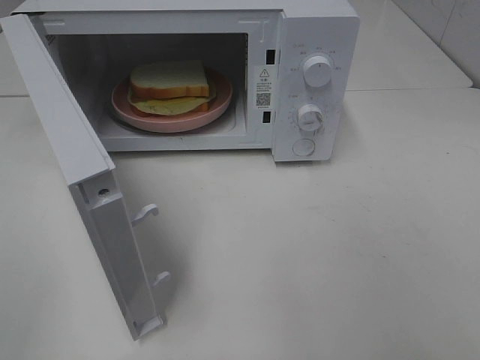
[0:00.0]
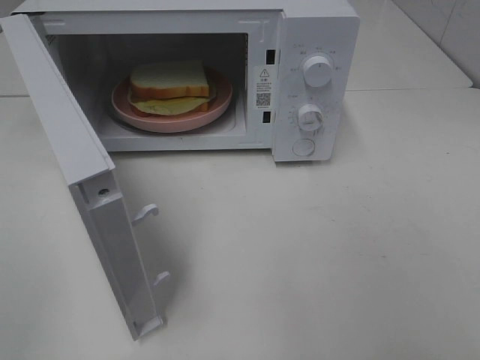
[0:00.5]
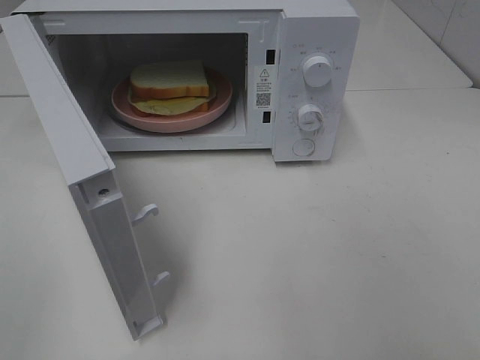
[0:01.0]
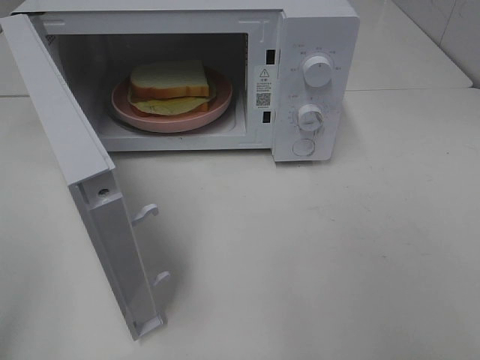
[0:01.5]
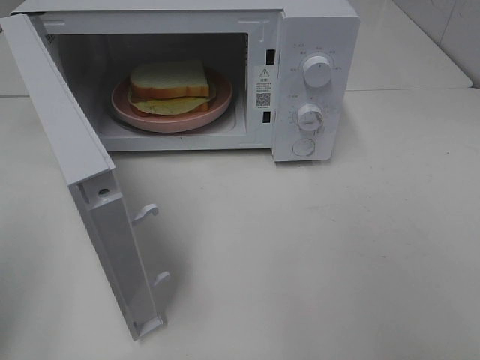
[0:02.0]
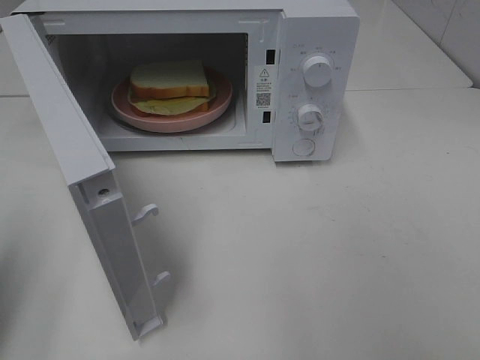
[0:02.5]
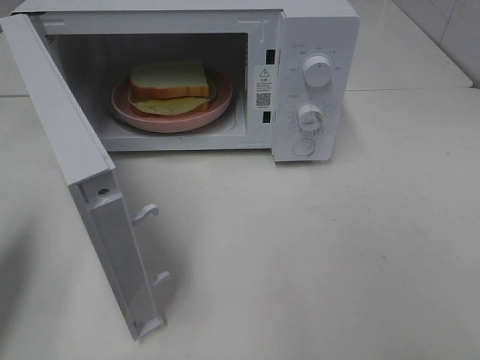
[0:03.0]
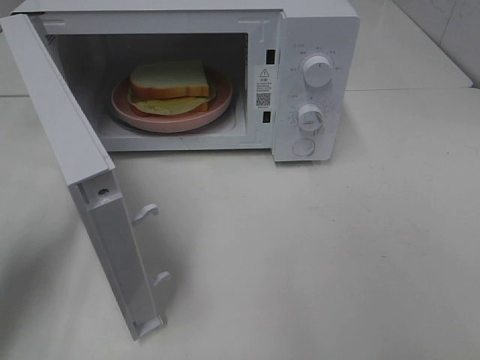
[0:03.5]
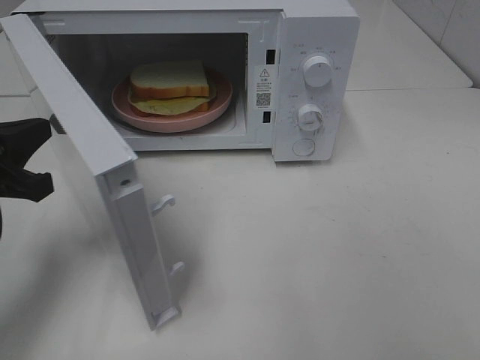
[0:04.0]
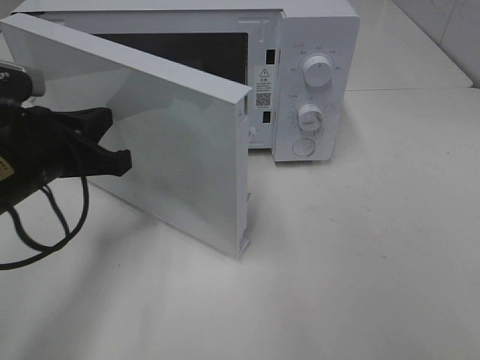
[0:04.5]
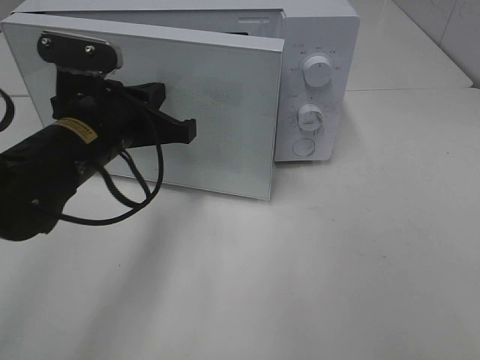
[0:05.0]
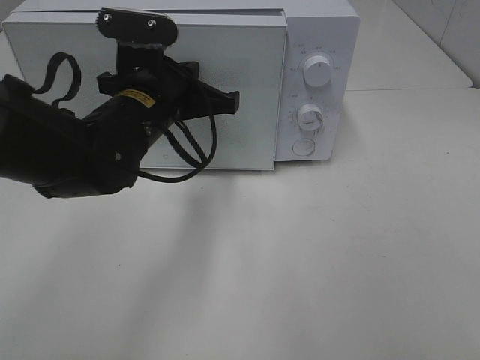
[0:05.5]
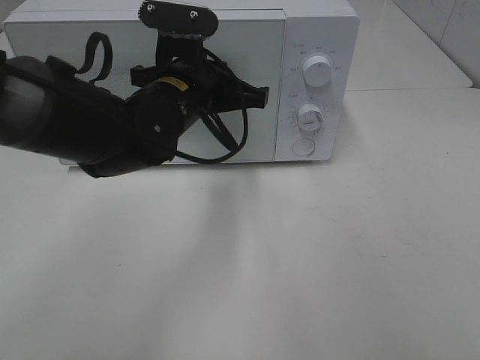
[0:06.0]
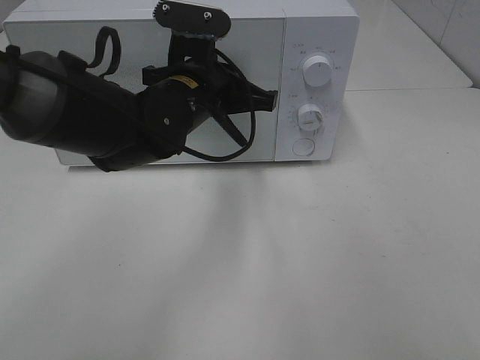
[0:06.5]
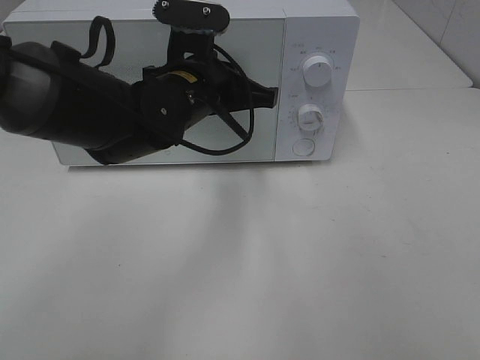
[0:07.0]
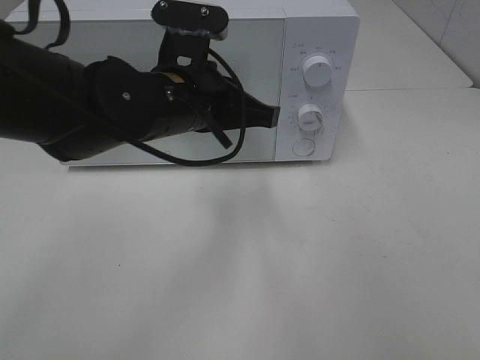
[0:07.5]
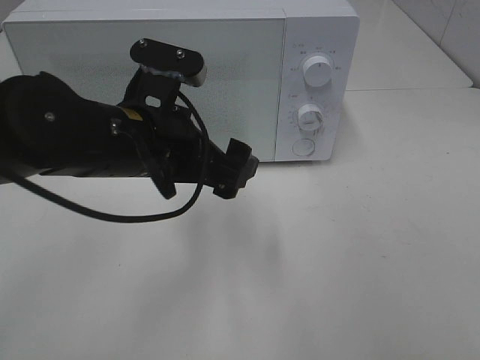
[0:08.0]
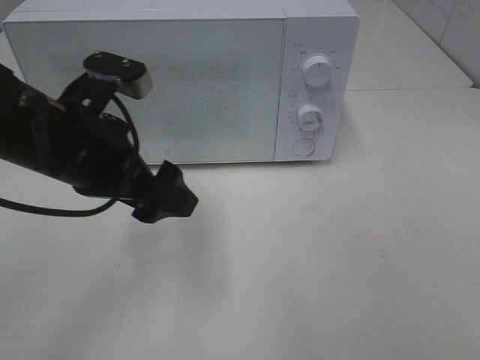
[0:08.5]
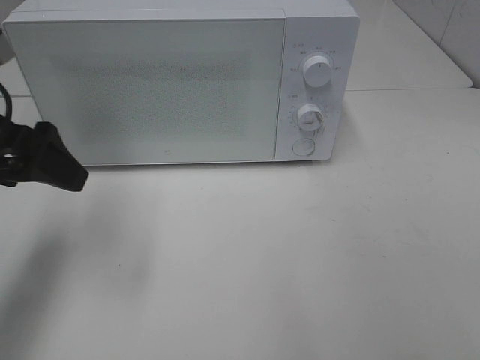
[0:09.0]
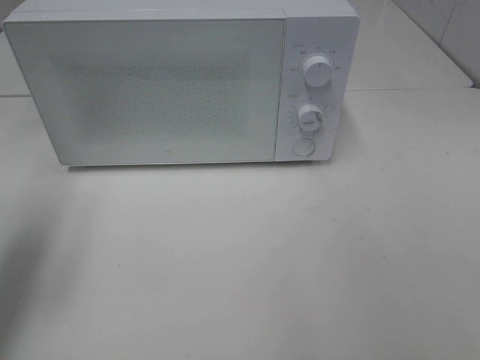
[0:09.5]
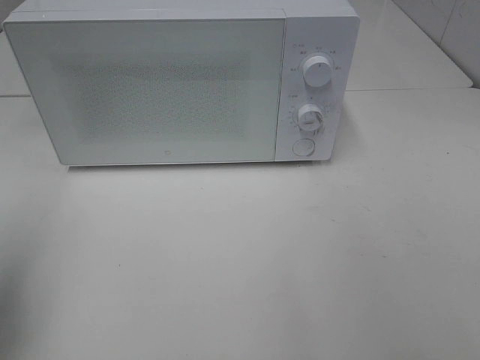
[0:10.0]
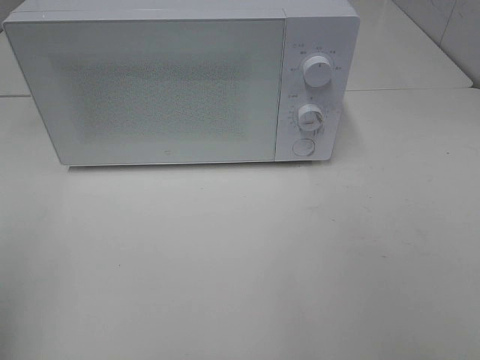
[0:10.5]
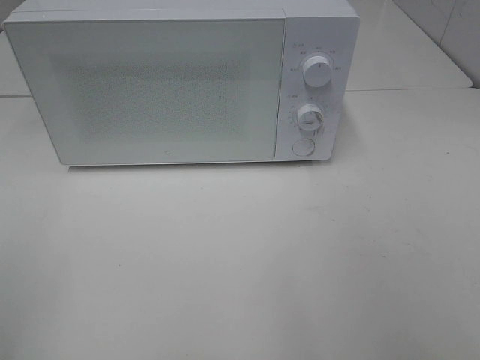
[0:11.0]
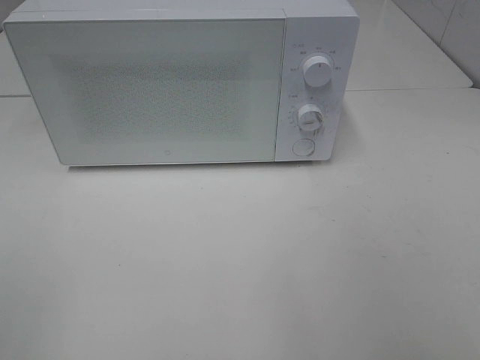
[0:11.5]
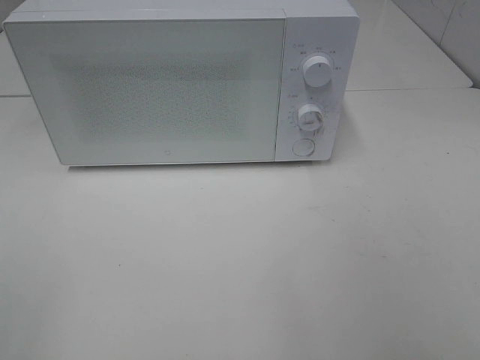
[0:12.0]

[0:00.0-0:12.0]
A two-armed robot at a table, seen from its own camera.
Task of the whole recording: Heat Sandwich.
Step, 0:00.0 to 0:07.5: Left hand: close the microwave door.
0:02.0 to 0:04.0: The left gripper shifts some 20 cm forward, downward and to the right.
0:04.0 to 0:06.0: The left gripper travels to the right and forward by roughly 25 cm.
0:06.0 to 0:08.0: The left gripper heads backward, covering approximately 10 cm, and opens its fingers.
0:08.0 to 0:10.0: The left gripper heads to the left, covering roughly 25 cm.
0:10.0 to 0:12.0: The left gripper shifts about 15 cm backward.

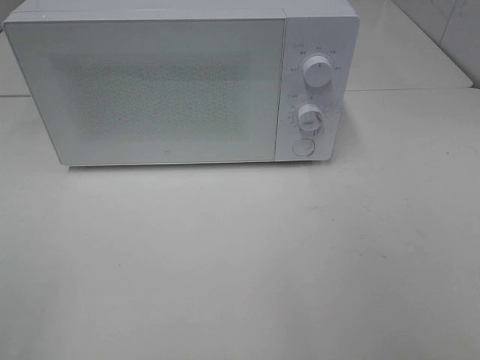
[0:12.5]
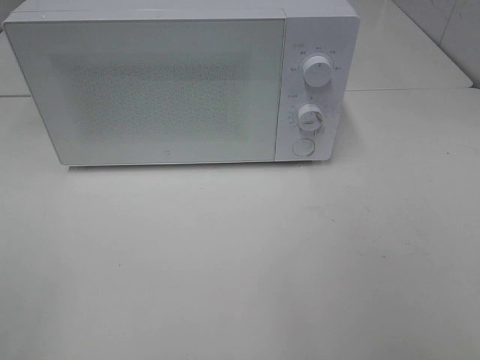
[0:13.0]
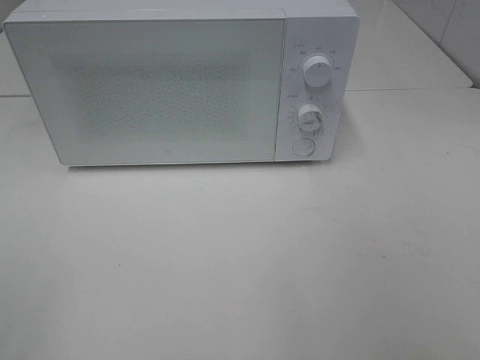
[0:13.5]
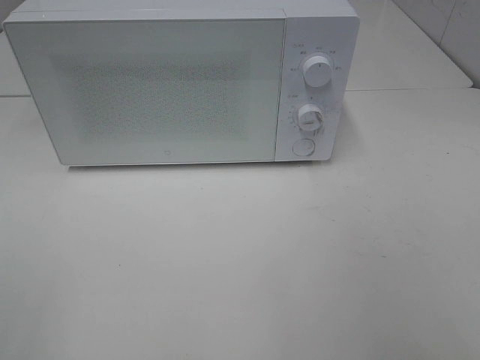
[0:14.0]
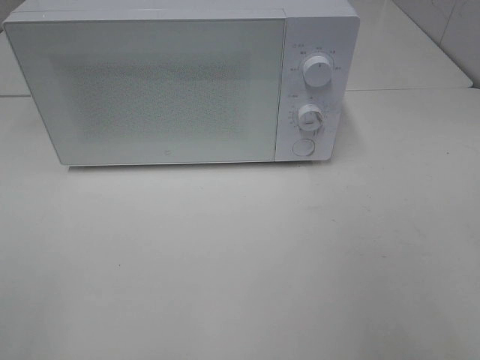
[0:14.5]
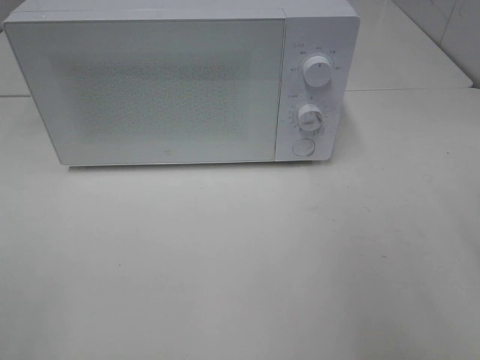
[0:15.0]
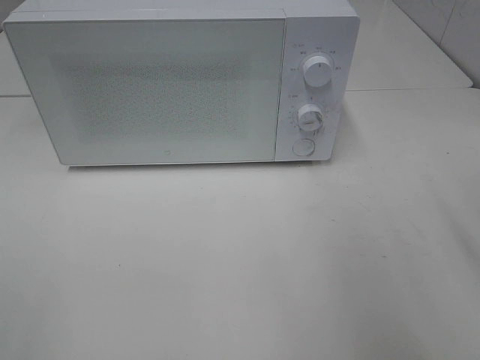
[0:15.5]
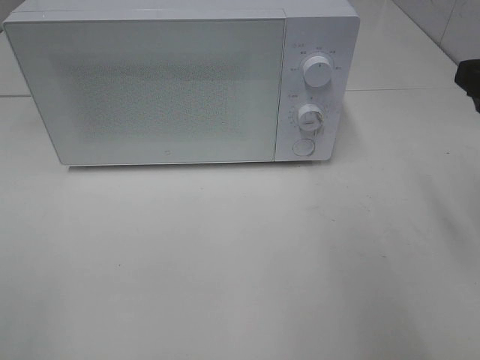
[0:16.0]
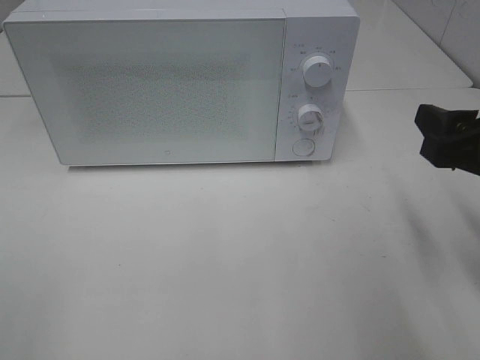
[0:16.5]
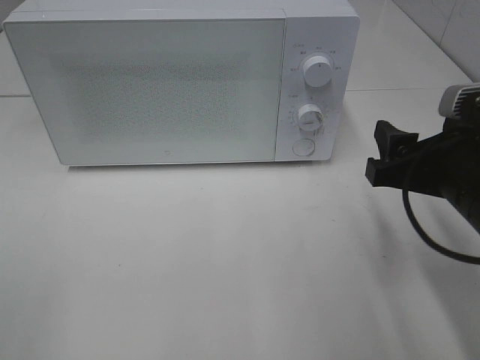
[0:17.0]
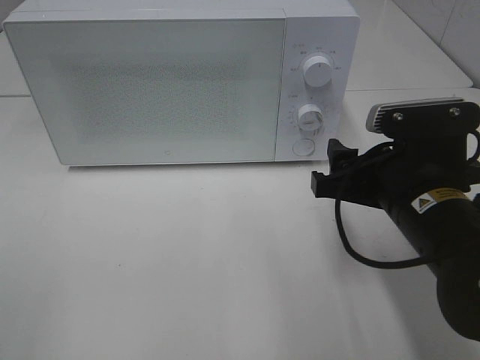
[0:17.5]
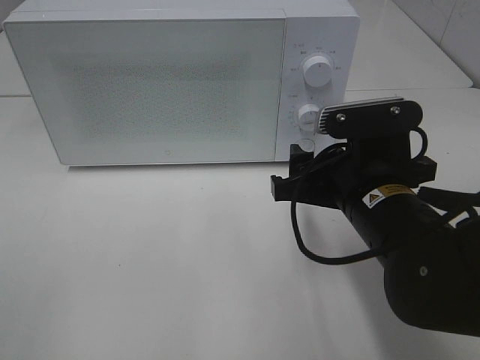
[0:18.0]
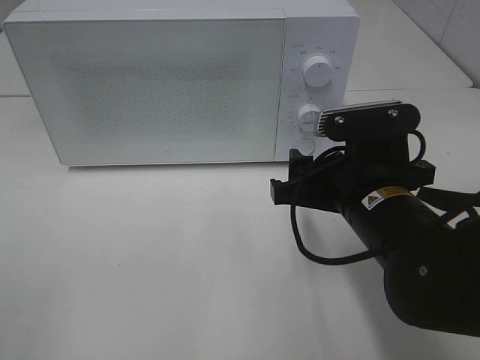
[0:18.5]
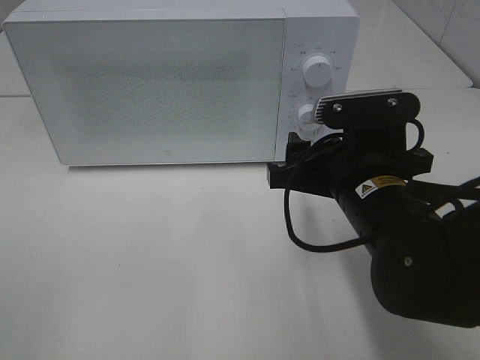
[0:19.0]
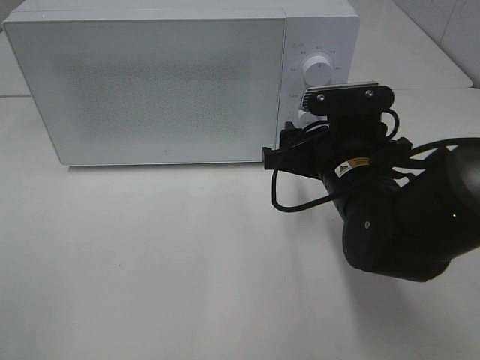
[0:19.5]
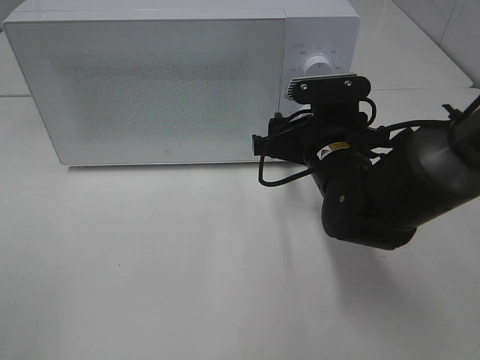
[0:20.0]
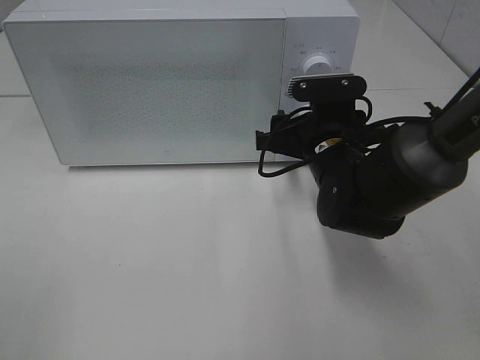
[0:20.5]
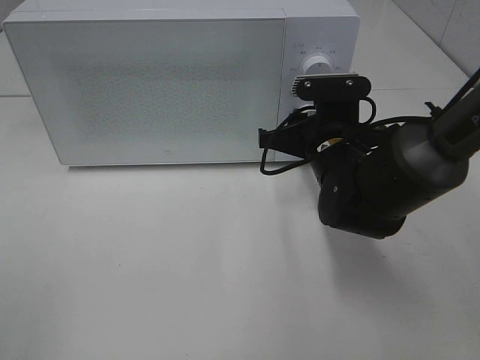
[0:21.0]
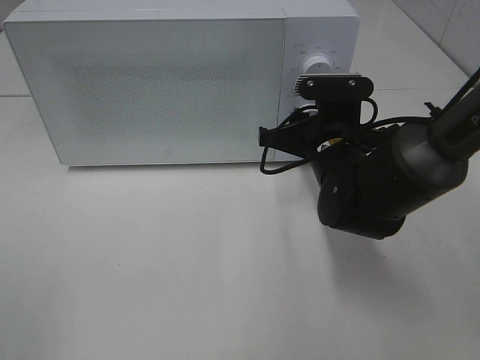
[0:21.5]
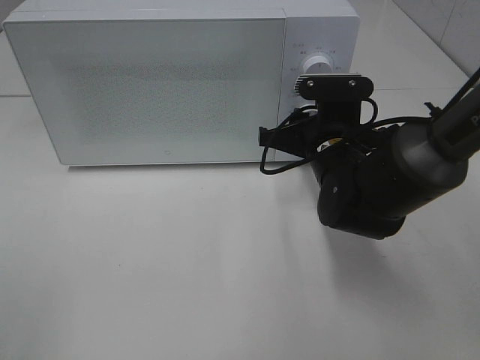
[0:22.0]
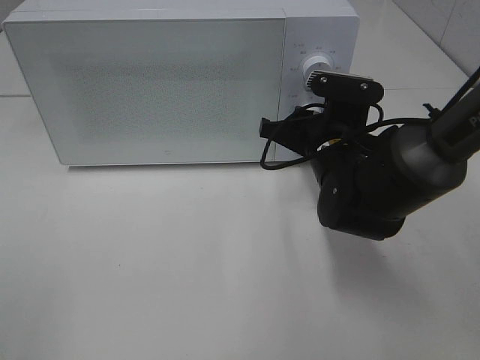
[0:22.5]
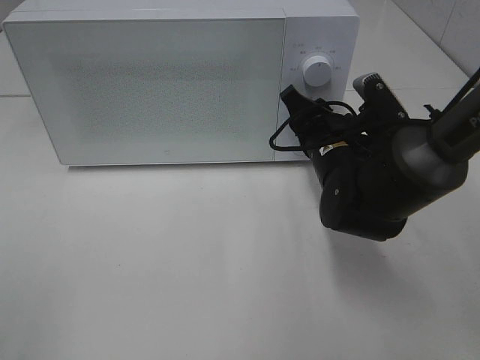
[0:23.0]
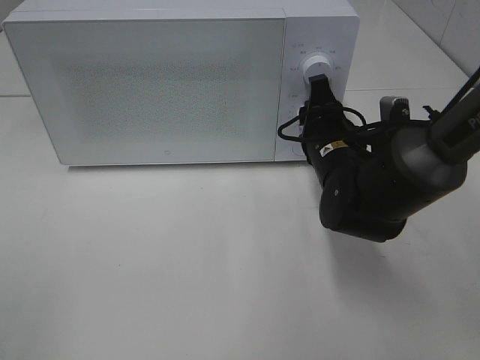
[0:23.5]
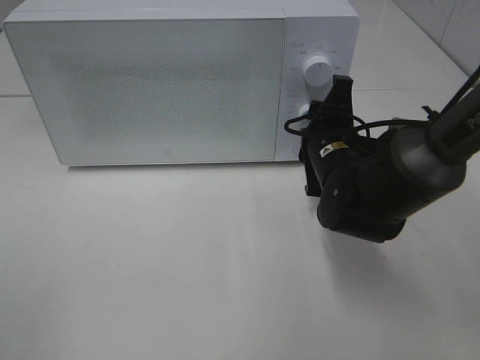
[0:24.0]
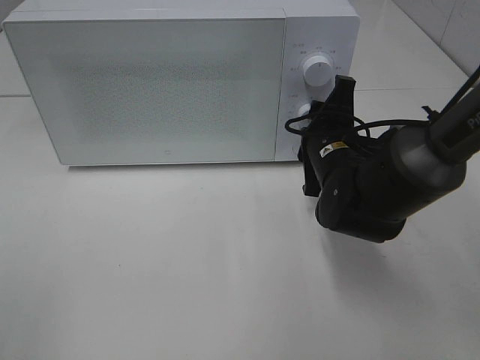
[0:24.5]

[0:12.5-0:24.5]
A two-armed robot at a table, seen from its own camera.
Task of the whole recording: Heat Sandwich.
0:14.5 to 0:16.5: The right gripper heads forward and downward, covering about 15 cm.
0:16.5 to 0:18.5: The right gripper moves to the left and downward, roughly 15 cm.
0:18.5 to 0:20.5: The right gripper moves forward, some 10 cm.
0:20.5 to 0:22.5: The right gripper closes.

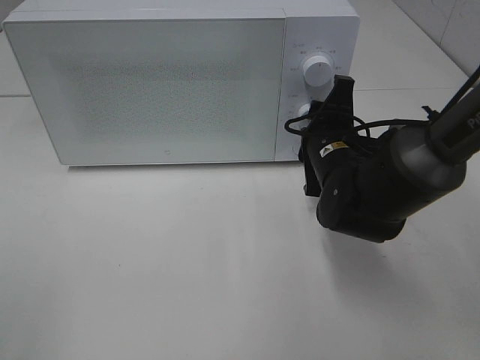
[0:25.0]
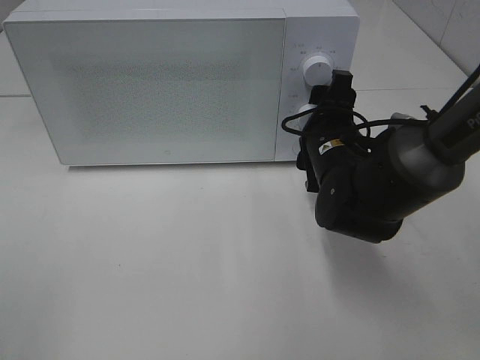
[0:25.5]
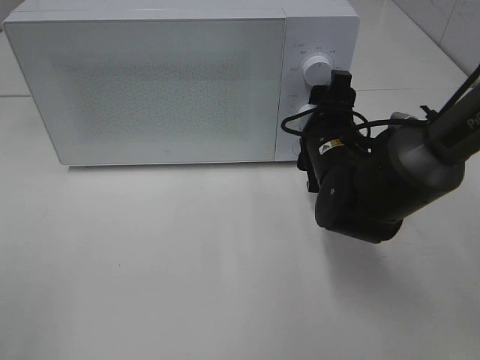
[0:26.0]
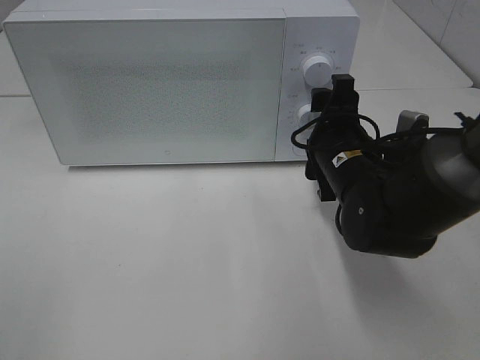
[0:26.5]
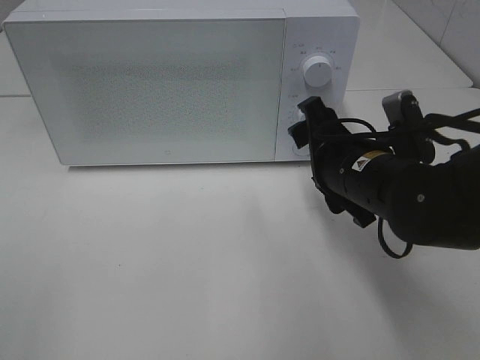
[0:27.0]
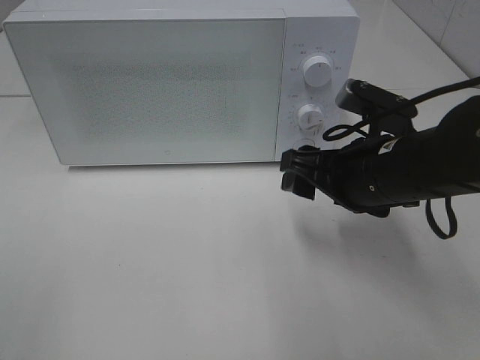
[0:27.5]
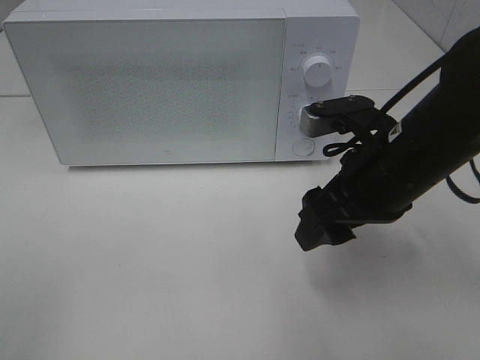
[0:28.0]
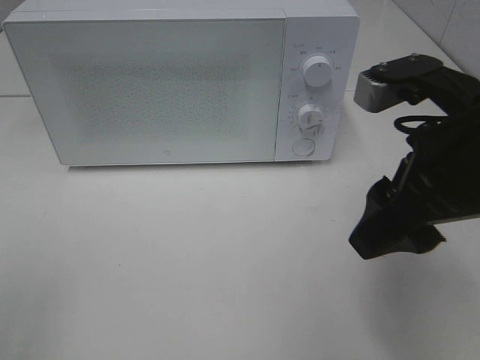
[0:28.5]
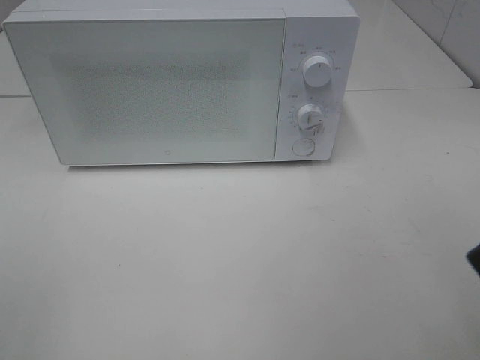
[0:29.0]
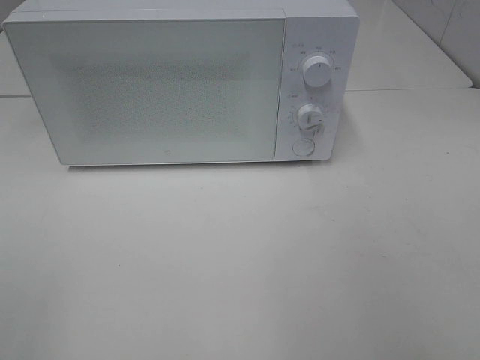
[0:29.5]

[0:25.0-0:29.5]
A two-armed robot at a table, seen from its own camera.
Task of the whole recording: Heat Sandwich.
0:25.0 to 0:27.0: The right gripper moves backward, roughly 5 cm, and opens.
0:27.0 to 0:29.5: The right gripper goes approximately 35 cm backward, upward and to the right.
